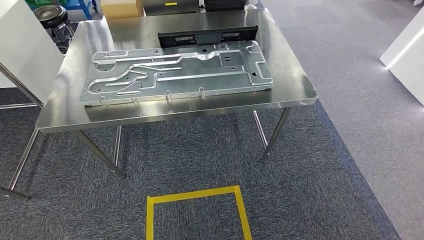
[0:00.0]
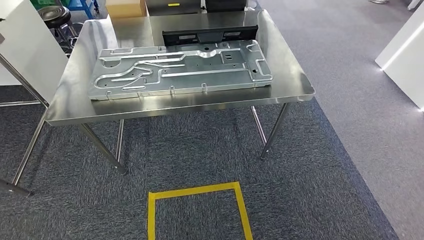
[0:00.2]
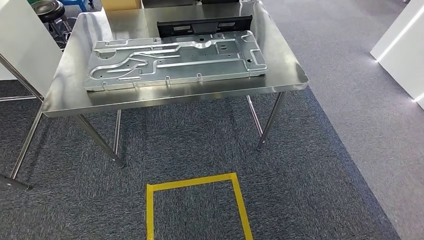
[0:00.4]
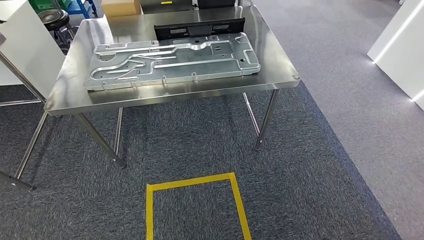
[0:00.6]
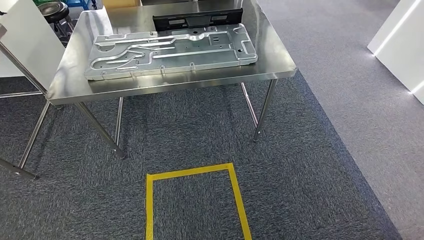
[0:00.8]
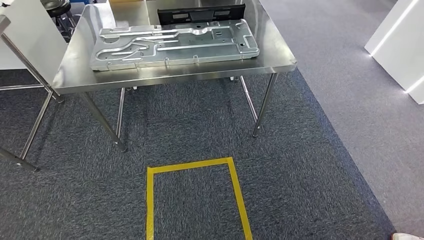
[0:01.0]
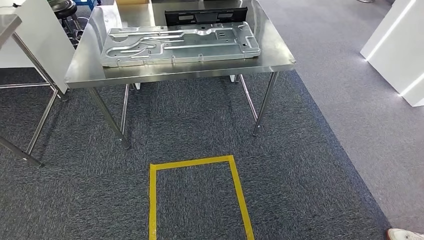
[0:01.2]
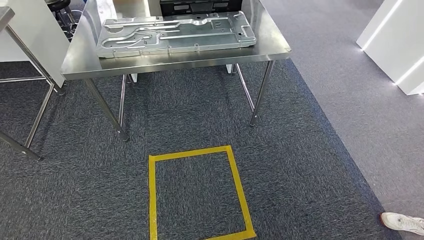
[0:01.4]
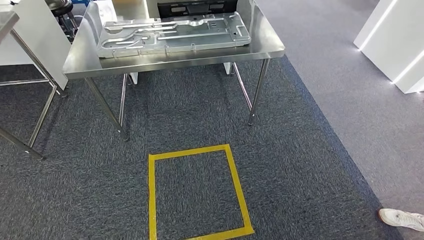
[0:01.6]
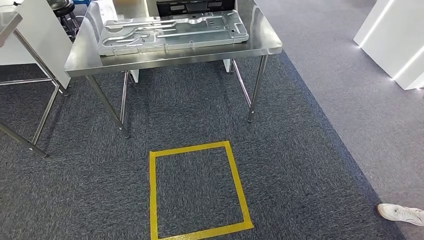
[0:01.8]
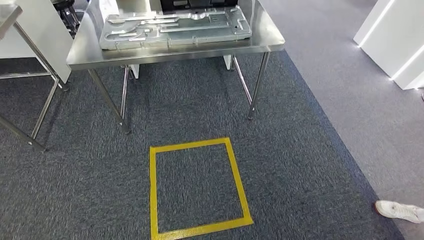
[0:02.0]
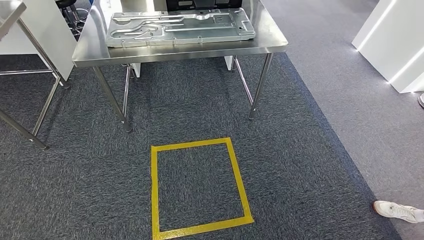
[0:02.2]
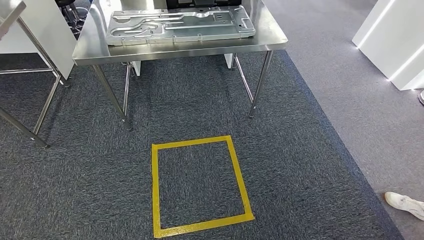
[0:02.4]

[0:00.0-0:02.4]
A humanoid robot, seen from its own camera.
Step, 0:01.0 to 0:02.4: Return to the initial position at the shelf.
